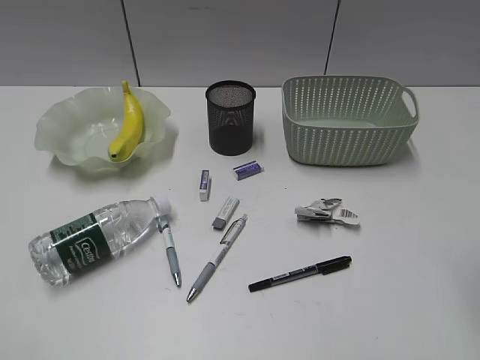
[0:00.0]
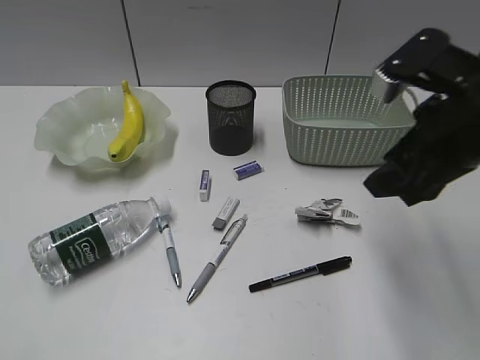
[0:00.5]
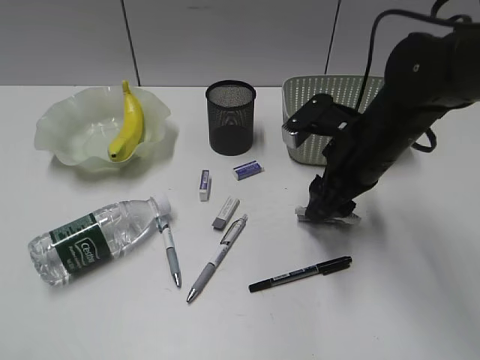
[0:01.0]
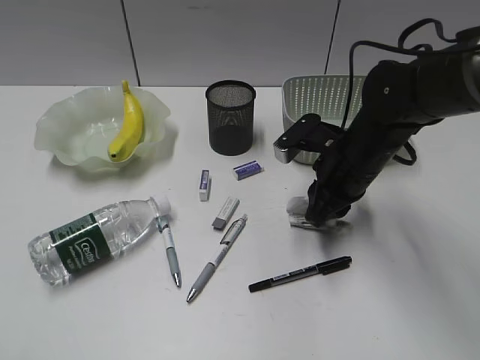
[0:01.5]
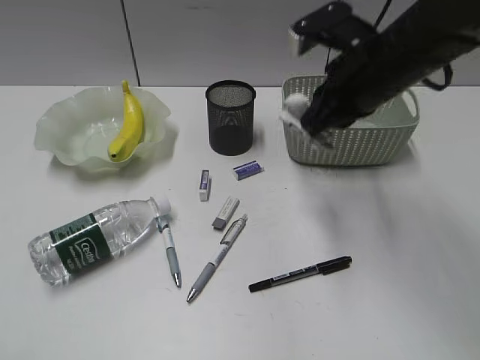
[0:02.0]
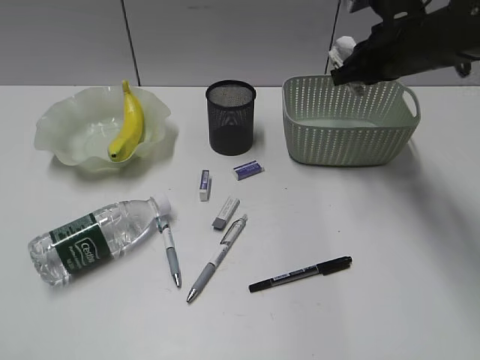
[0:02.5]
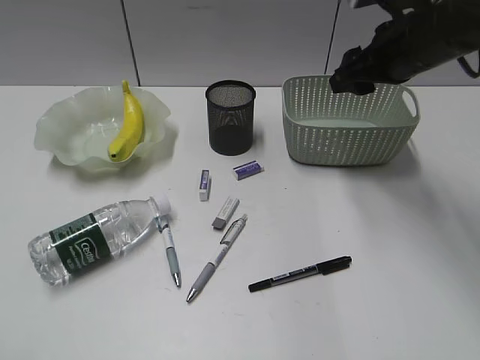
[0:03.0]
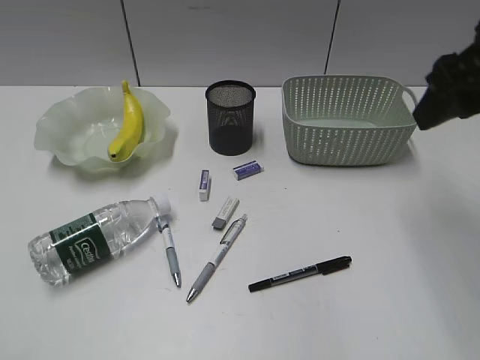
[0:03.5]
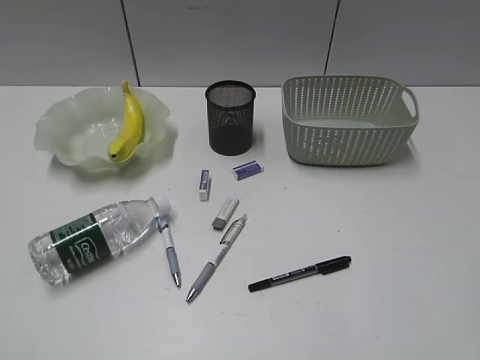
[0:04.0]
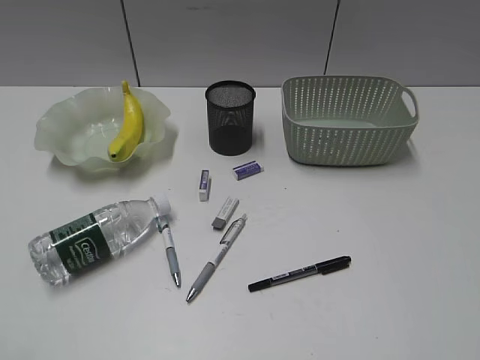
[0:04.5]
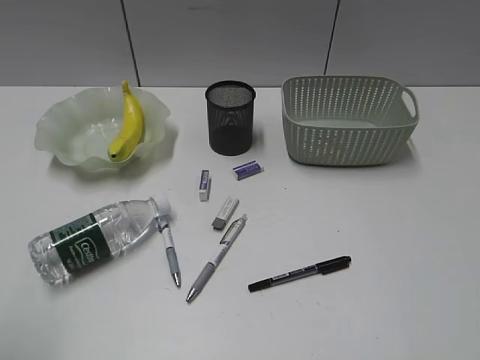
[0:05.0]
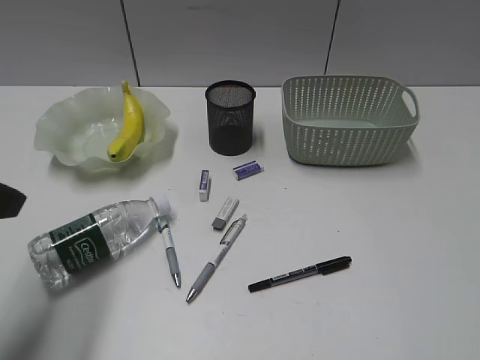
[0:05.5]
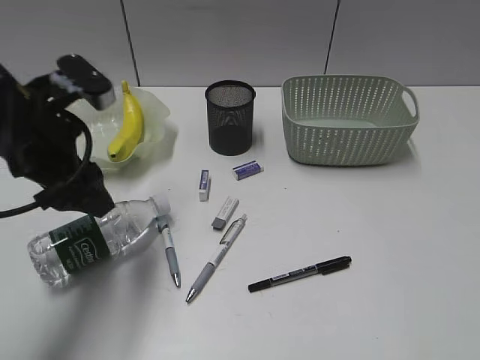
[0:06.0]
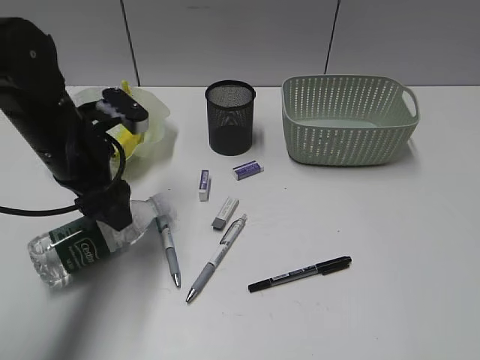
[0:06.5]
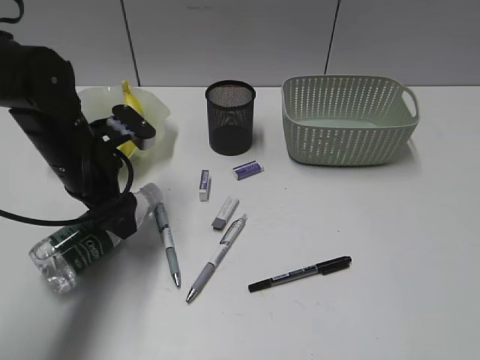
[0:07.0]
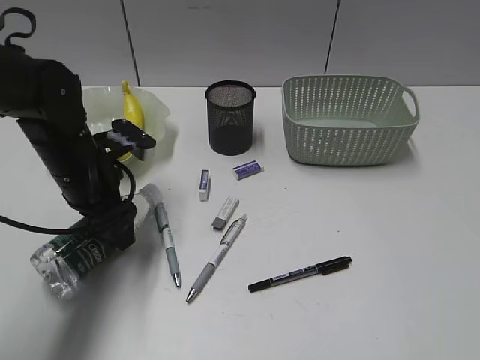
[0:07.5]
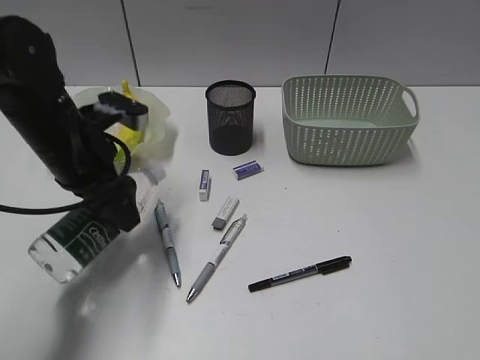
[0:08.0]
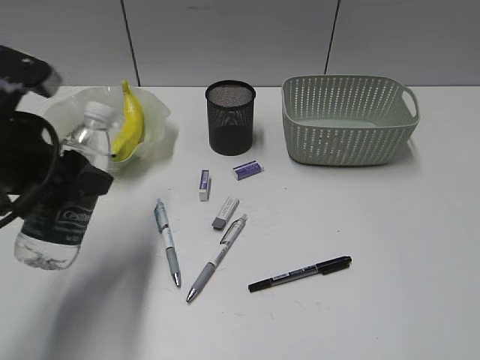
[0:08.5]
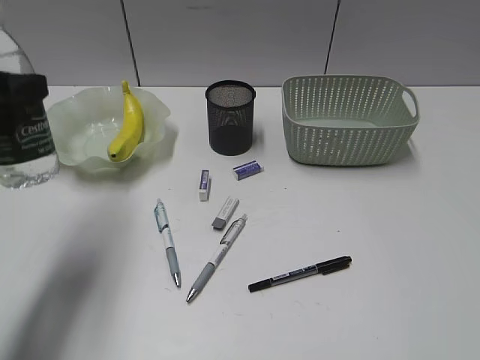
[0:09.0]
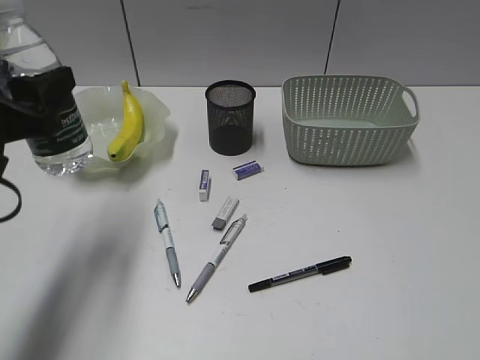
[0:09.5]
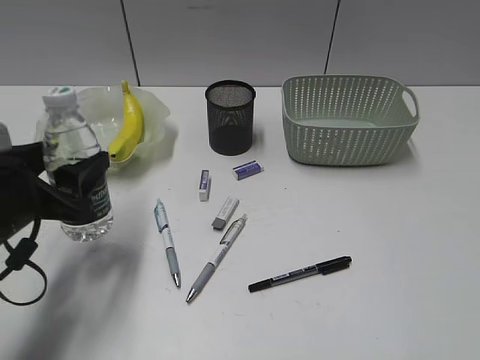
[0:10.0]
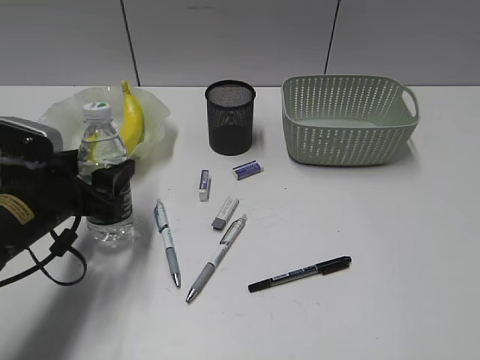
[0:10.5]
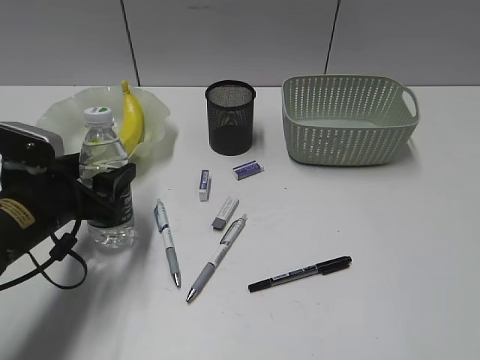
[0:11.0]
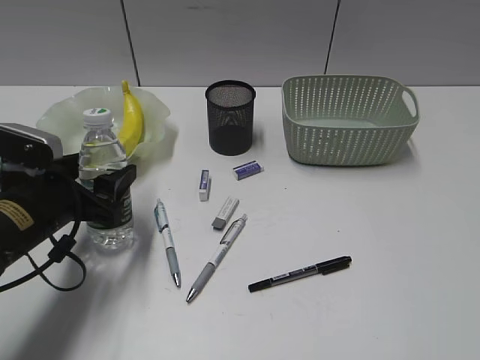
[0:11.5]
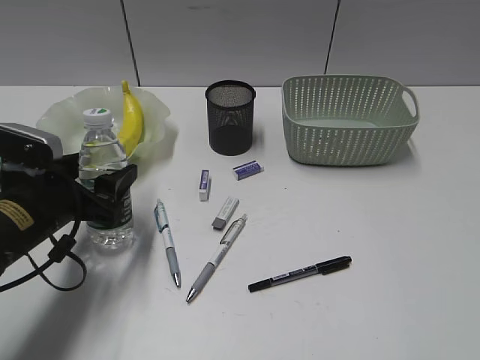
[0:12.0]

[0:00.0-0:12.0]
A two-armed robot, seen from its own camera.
Step, 0:02.0 to 0:02.5: Place the waste paper in the basket with right gripper.
Step, 0:03.0 to 0:07.0: Grasp the bottle with left gripper.
0:00.0 to 0:02.0: The right gripper moves forward, to the left and downward, about 25 cm, and closes up.
0:02.0 to 0:04.0: The right gripper moves backward and to the right, some 25 cm, and opens up.
0:04.0 to 0:06.0: The left gripper goes some 30 cm forward and to the right, and opens.
0:06.0 to 0:08.0: The left gripper goes approximately 5 cm downward.
0:08.0 to 0:10.0: The left gripper moves backward and to the left, approximately 10 cm, and goes upward and returns, about 10 cm each way.
0:10.0 to 0:12.0: The left gripper ends up about 5 cm from where it was.

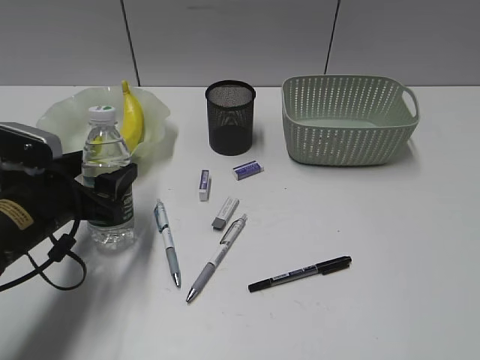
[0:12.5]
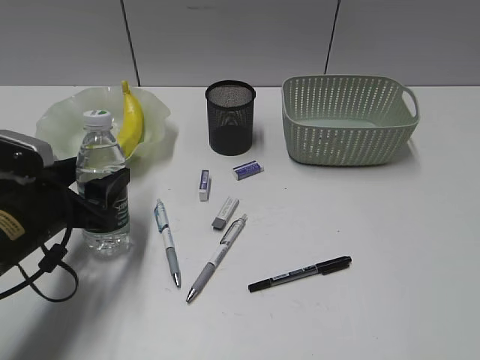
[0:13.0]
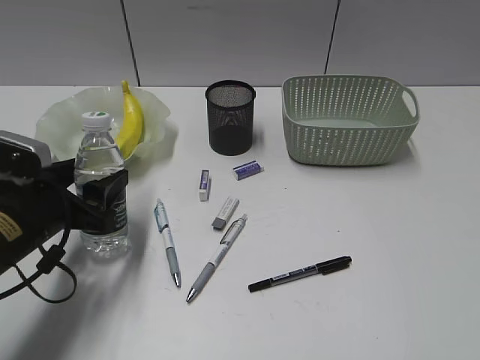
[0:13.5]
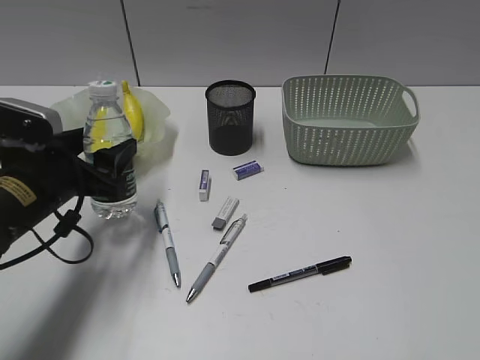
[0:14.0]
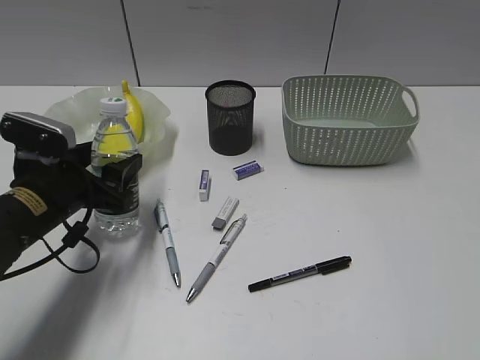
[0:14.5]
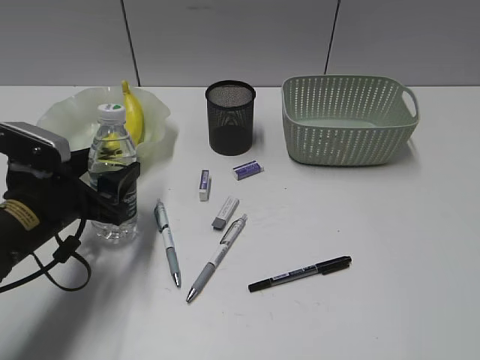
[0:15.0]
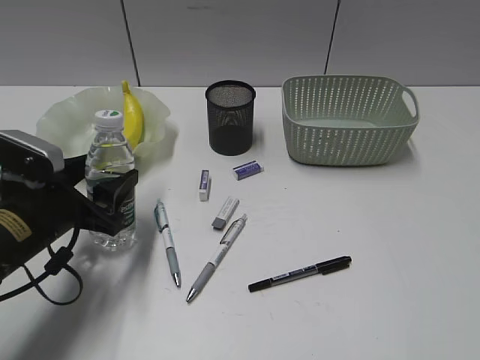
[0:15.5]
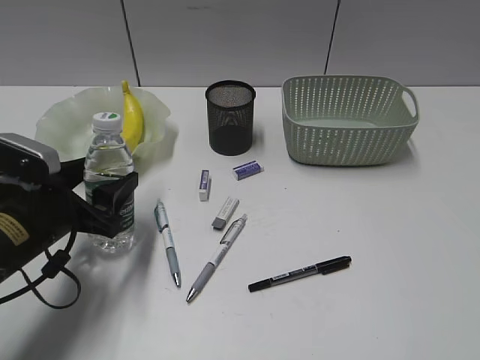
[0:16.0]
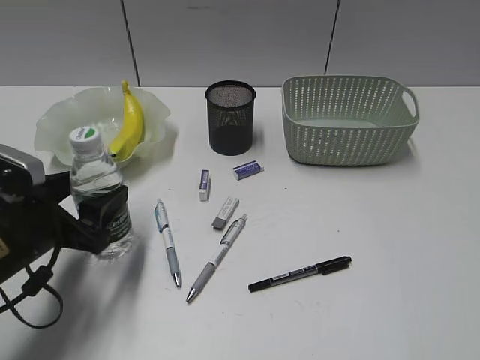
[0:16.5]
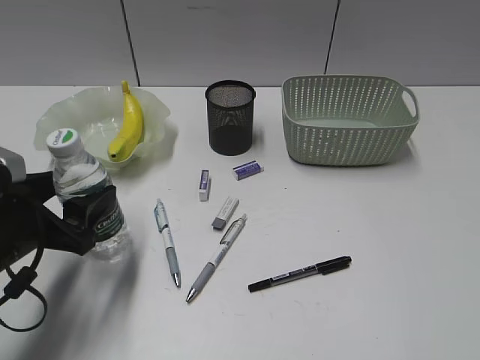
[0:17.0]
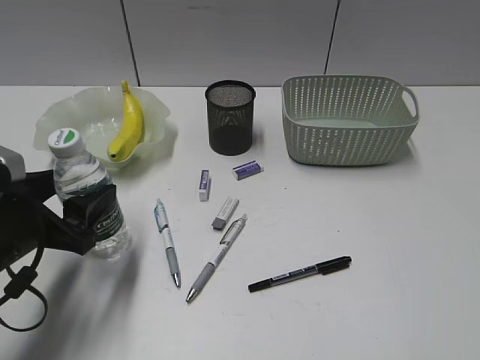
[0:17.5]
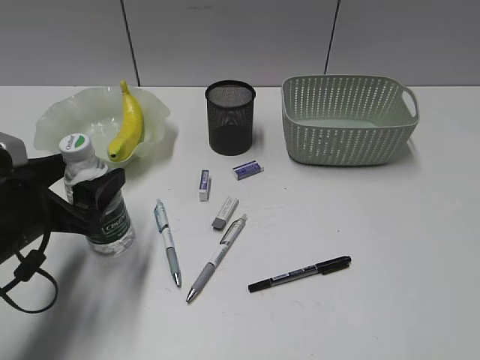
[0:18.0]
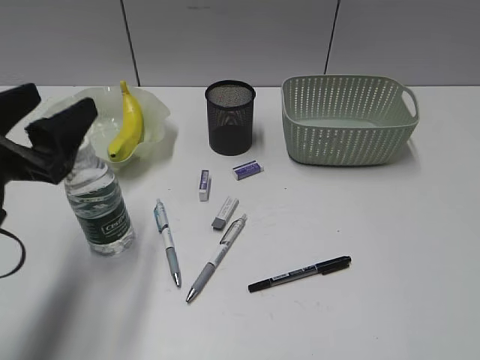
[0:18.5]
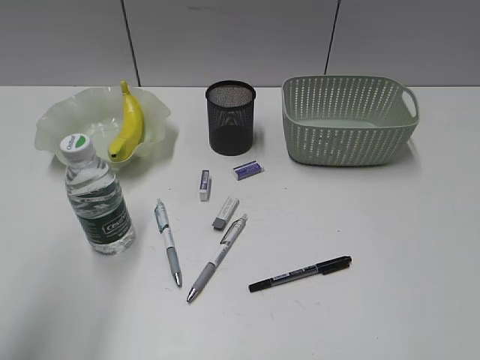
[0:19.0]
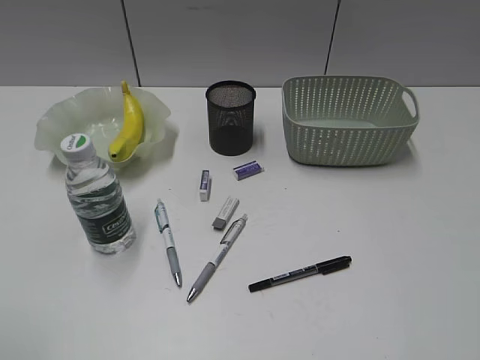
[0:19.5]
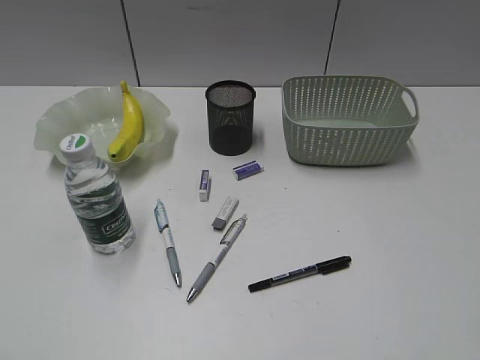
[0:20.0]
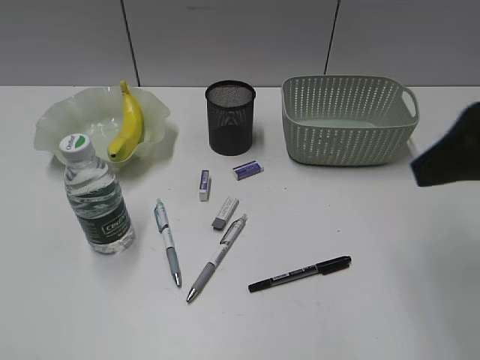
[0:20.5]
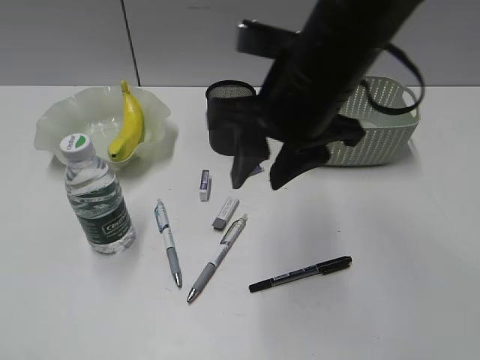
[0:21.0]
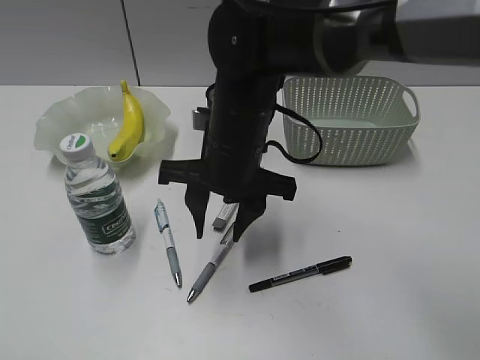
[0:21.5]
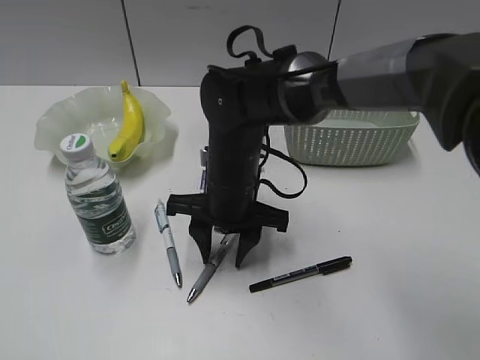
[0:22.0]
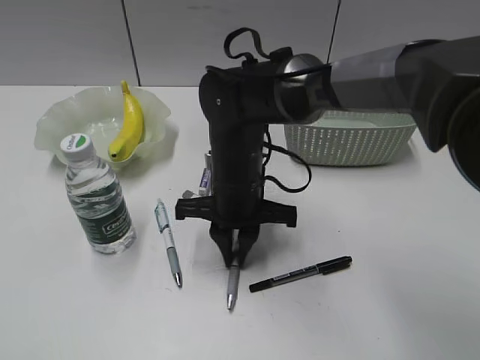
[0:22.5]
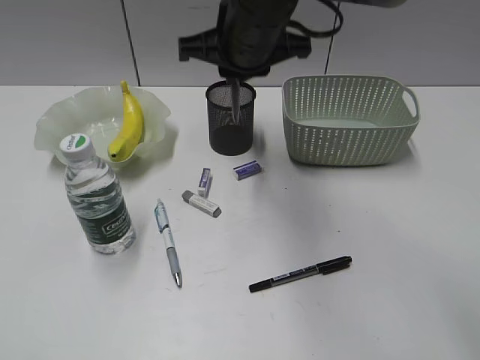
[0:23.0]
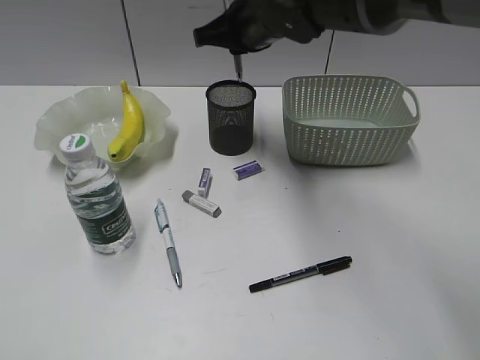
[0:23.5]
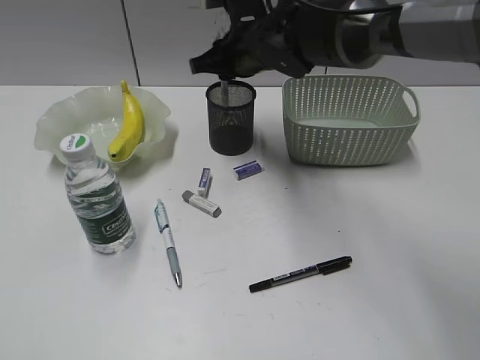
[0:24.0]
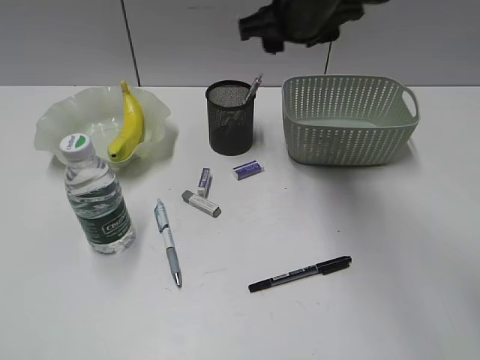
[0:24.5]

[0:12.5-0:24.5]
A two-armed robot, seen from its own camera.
Step, 0:12.5 to 0:18.0: Stand the bottle with left gripper.
Step, 0:18.5 to 0:22.0: Grasp the gray pen with right gripper.
Step, 0:22.5 to 0:24.0: Place the gray pen in pen holder with right gripper.
0:12.5 to 0:16.5: The grippers make only small movements.
0:16.5 to 0:18.5: The left gripper moves upward, approximately 10 cm.
0:18.5 to 0:20.5: The right gripper travels forward and to the left by about 20 cm. Meanwhile the left gripper shifts some 25 cm backward, to the left and upward.
0:20.5 to 0:22.5: The right gripper travels to the left, downward and forward by about 35 cm, and closes its fingers.
0:22.5 to 0:24.5: The right gripper goes up and down, approximately 15 cm each way, reversing 2 times, and opens up.

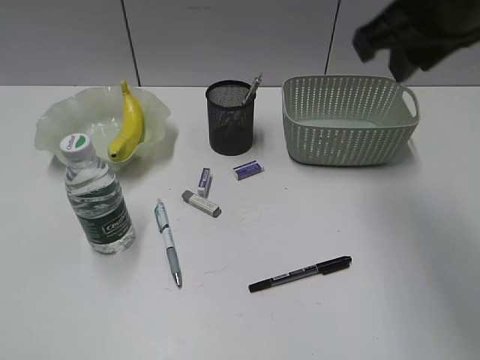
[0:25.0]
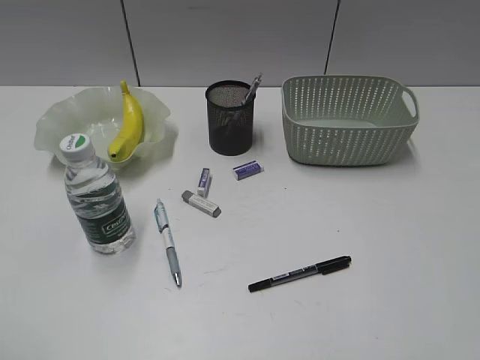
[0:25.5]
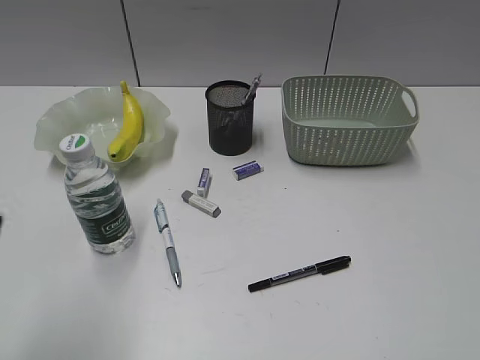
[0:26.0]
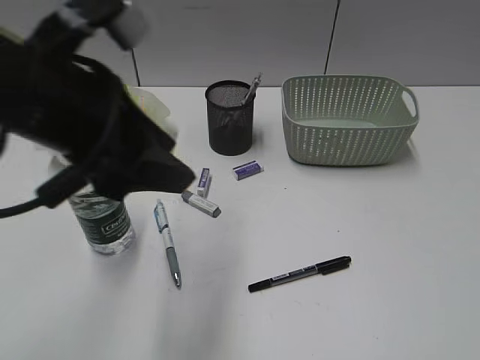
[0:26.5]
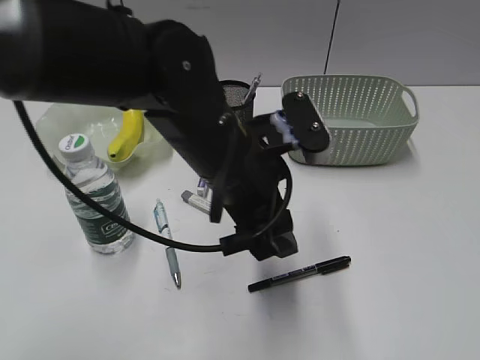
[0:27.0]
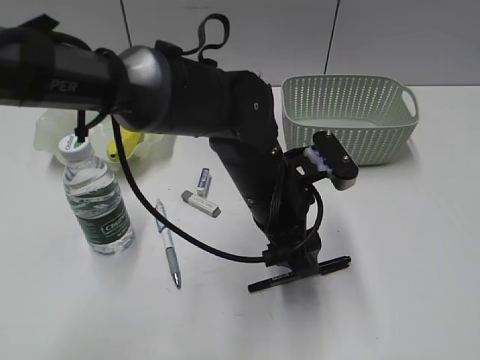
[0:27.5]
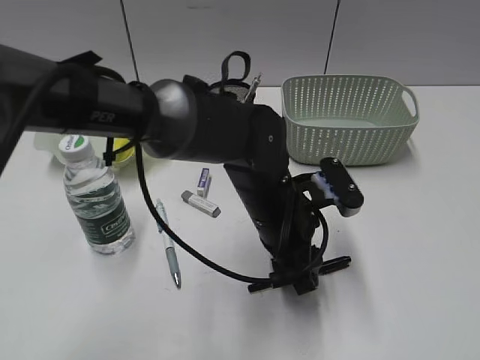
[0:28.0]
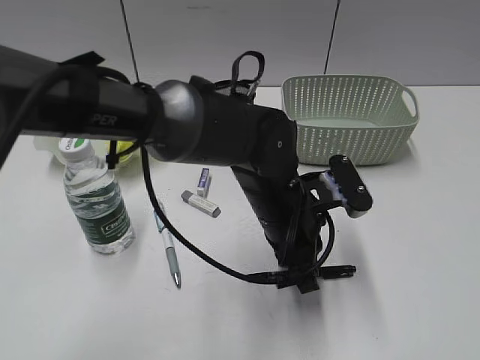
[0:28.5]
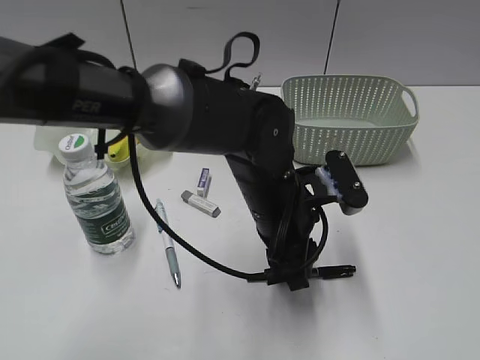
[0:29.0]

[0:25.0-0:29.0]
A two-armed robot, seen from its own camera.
0:25.0 to 0:27.0: The right gripper travels backward and to the right by roughly 35 cm. The left gripper is displaced to the right and forward by some 40 cm.
0:27.0 to 0:29.0: The left gripper goes roughly 10 cm downward and to the right, and closes its fingers.
